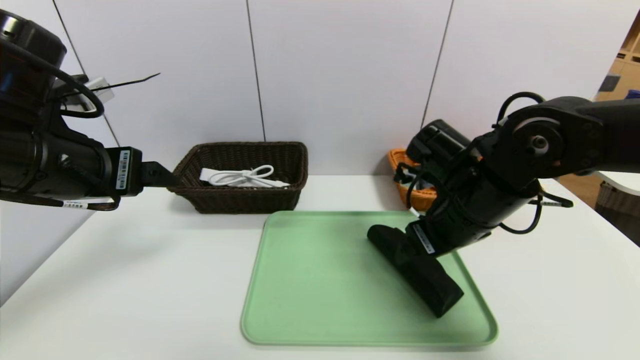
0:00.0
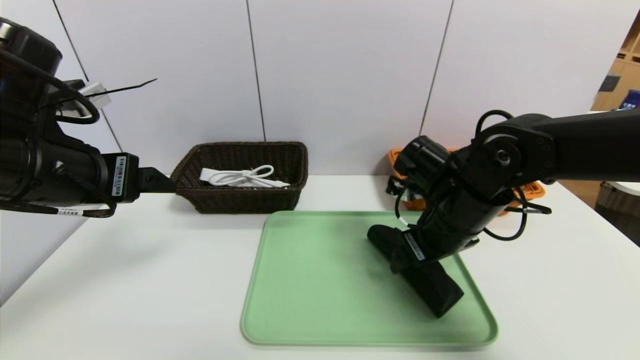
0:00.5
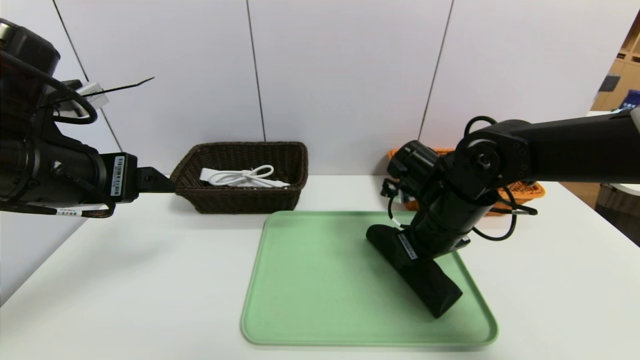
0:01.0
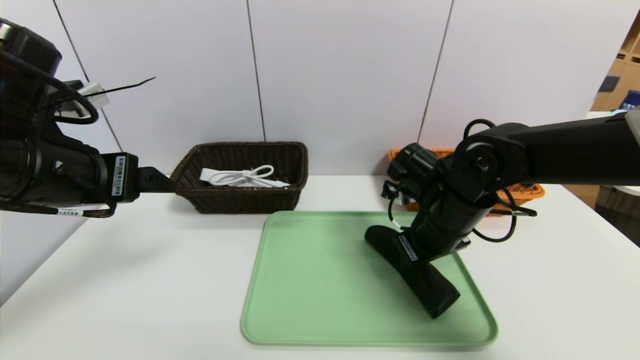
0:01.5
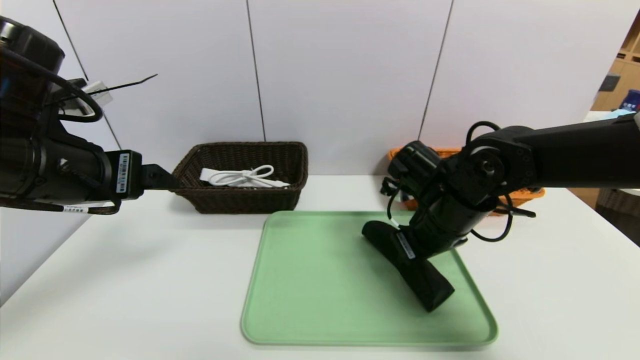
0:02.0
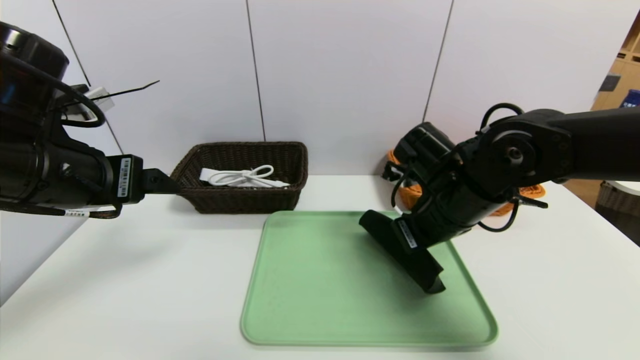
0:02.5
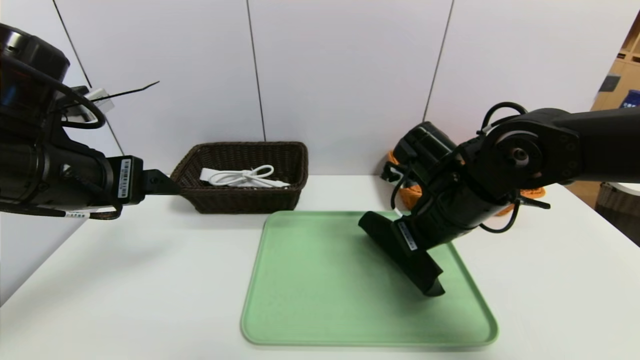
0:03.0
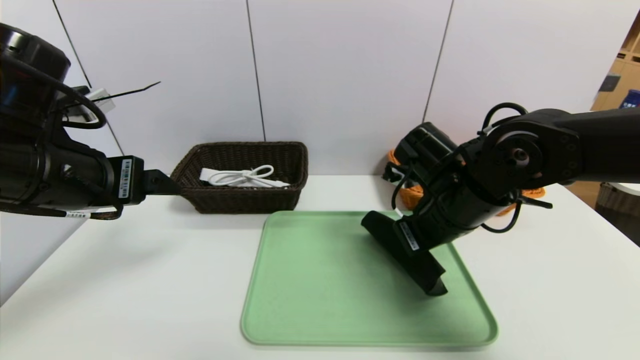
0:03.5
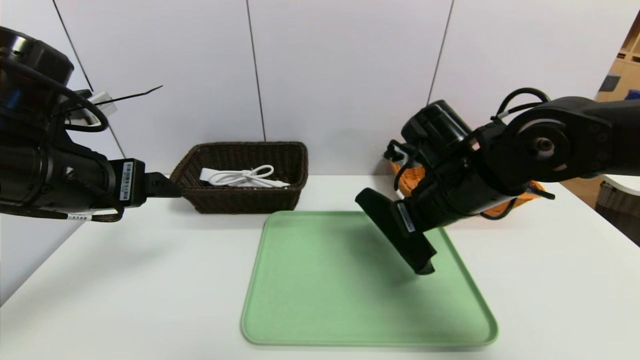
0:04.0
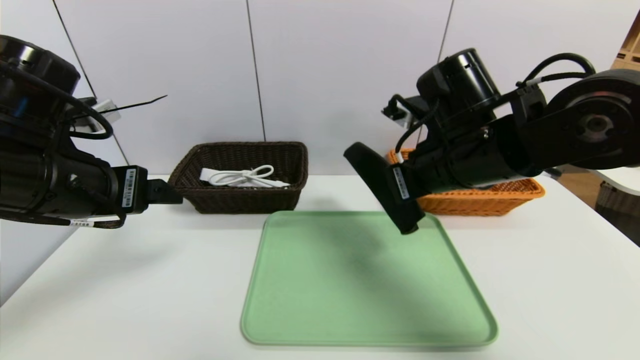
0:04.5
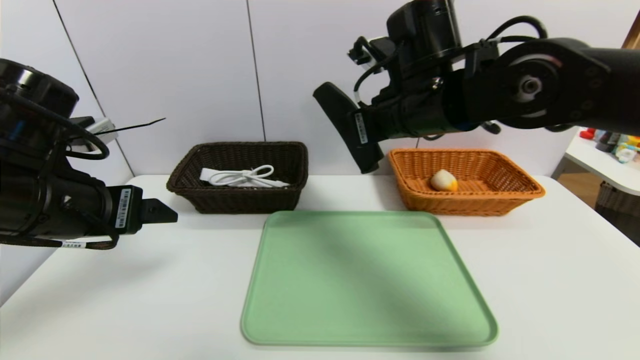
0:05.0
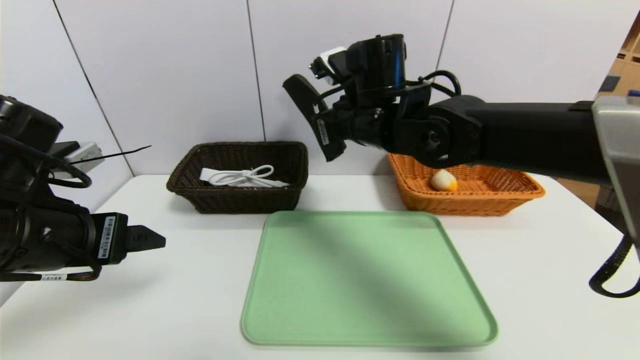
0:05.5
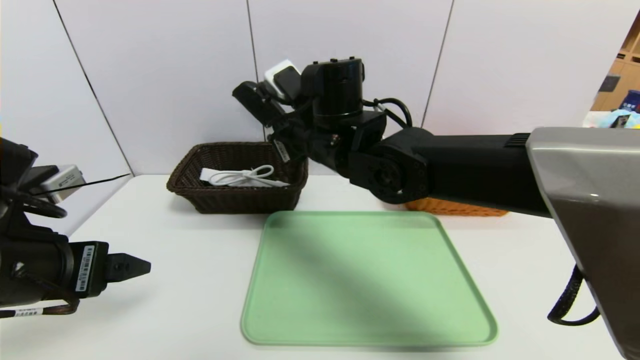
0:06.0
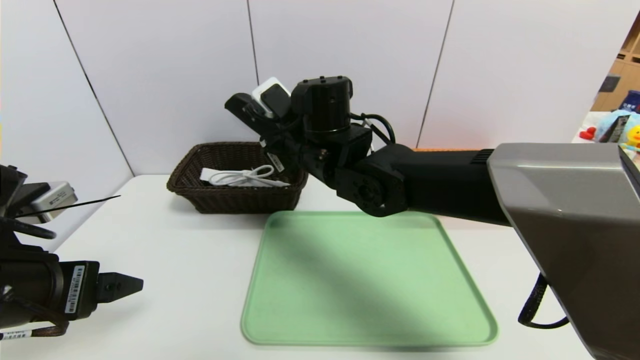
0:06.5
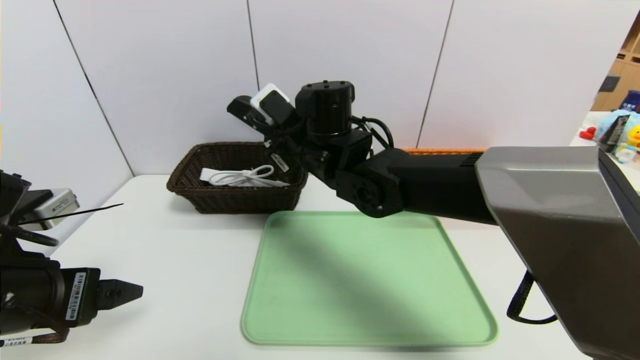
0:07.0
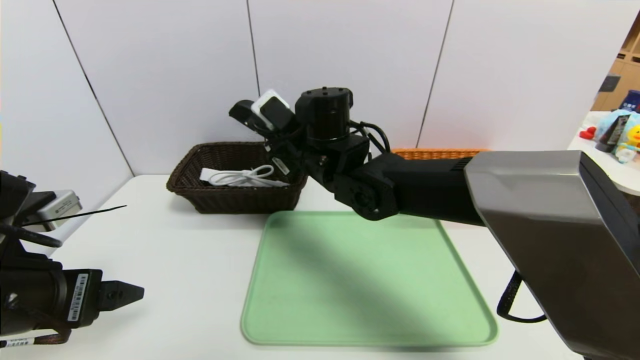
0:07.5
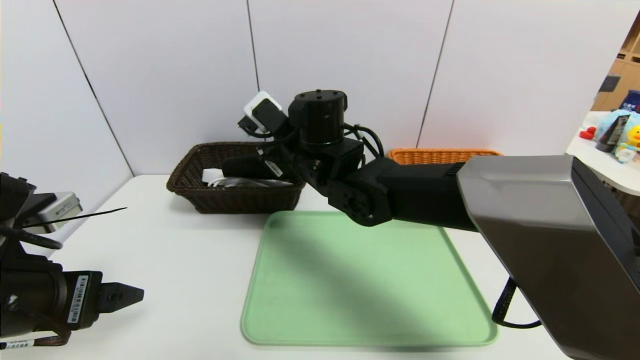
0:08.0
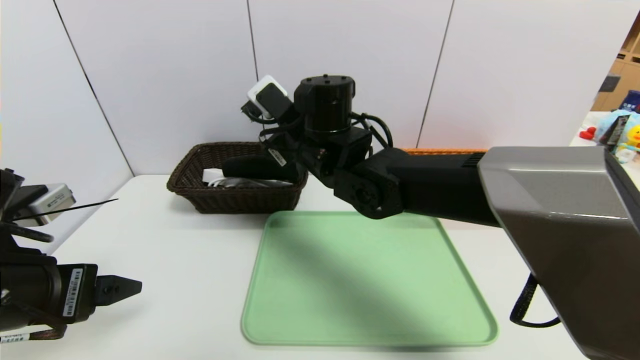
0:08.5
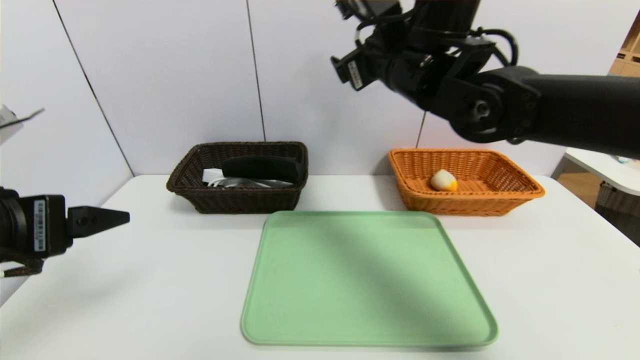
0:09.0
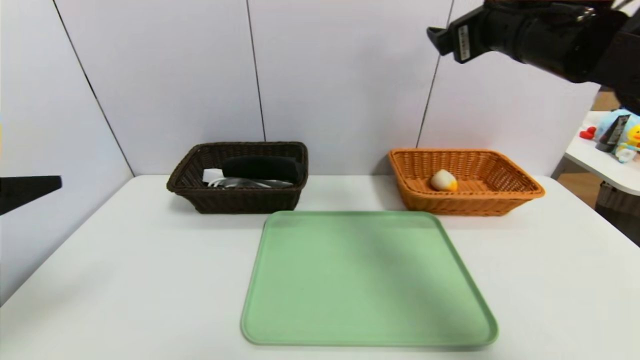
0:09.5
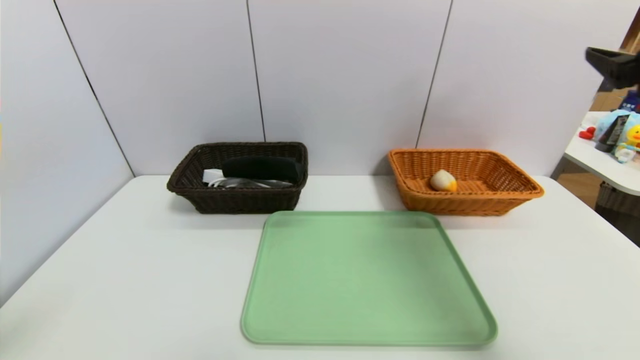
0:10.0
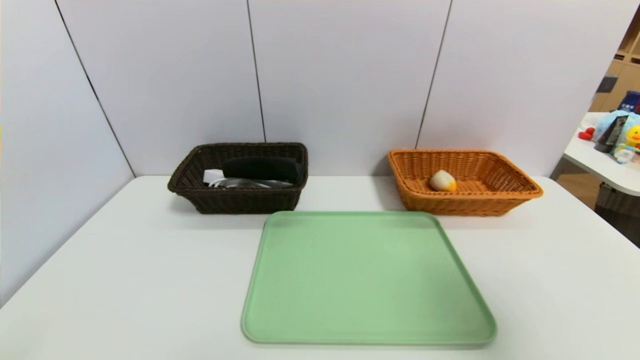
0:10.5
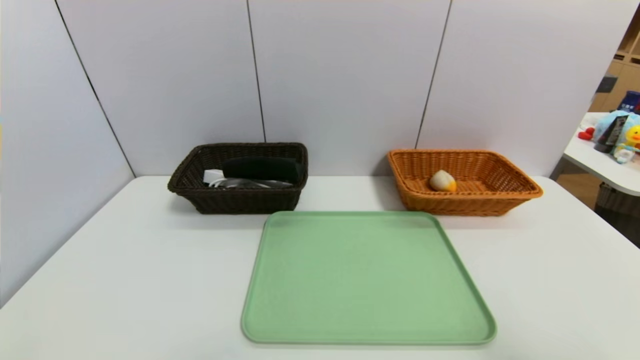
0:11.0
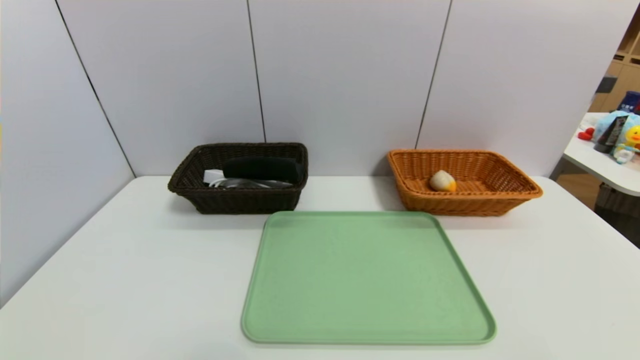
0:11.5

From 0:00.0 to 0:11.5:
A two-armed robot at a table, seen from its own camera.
Task of the whole recording: place the food in the right basket with the right gripper, and place the non food items in the left basket with the left gripper.
Step, from 0:00.0 to 0:08.0: Grasp the glasses case and put it in the left basket.
From 0:00.0 to 0:02.0: The right gripper closes up.
From 0:02.0 to 0:04.0: The right gripper changes place by some 5 cm.
From 0:04.0 to 0:06.0: The right gripper heads to the left, covering some 15 cm. The left gripper is displaced backward by approximately 5 cm.
From 0:07.5 to 0:09.5: The right gripper travels to the right and upward by about 25 cm, and opens up, while the left gripper moves upward, some 10 cm.
From 0:09.5 to 0:11.5: The left gripper shifts some 20 cm backward and downward. Meanwhile the right gripper moves backward, about 35 cm.

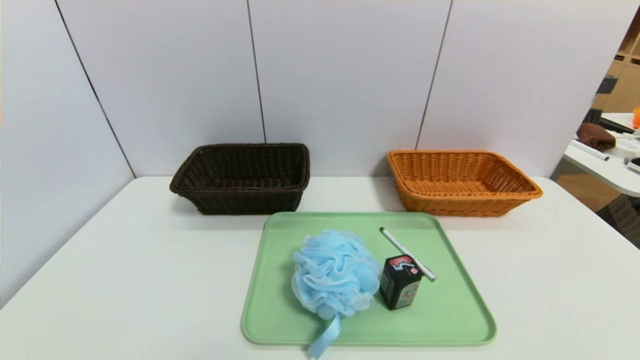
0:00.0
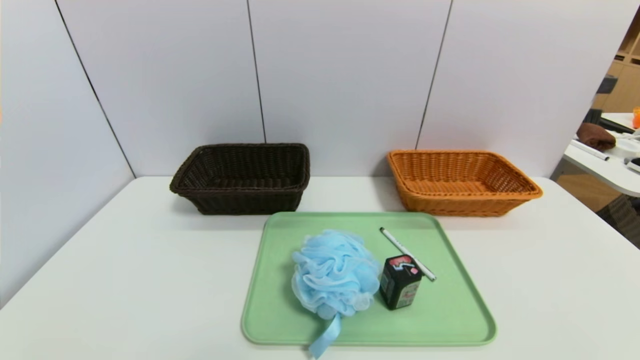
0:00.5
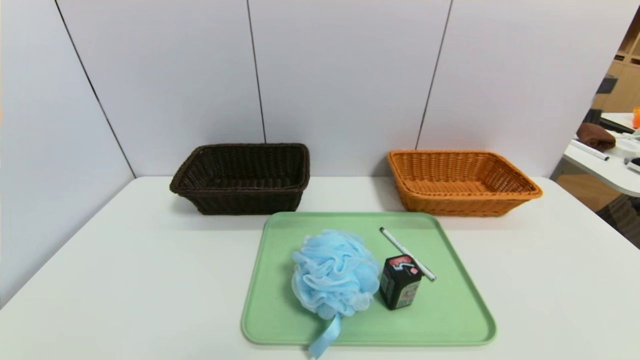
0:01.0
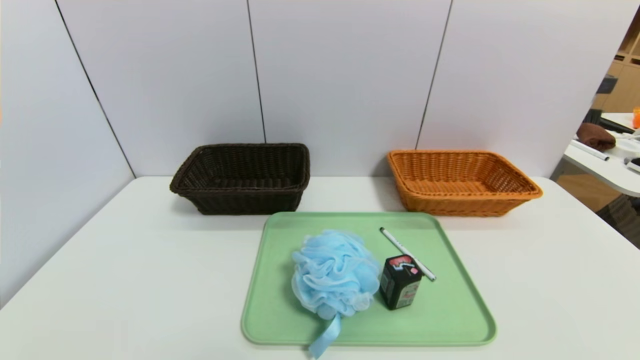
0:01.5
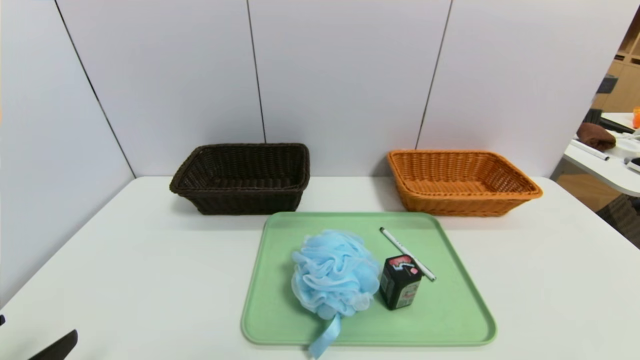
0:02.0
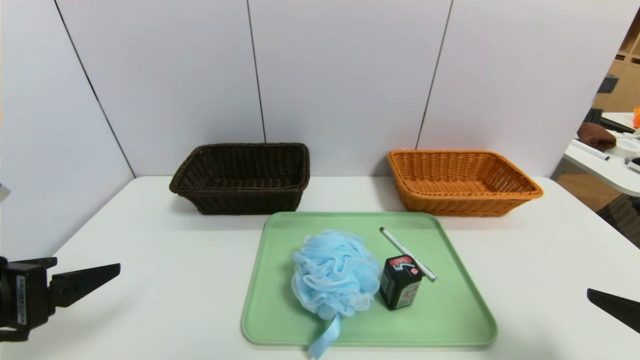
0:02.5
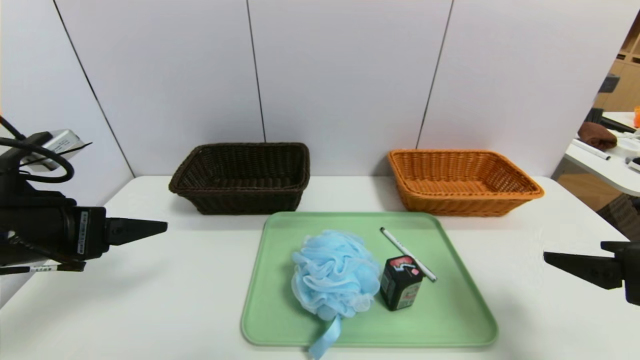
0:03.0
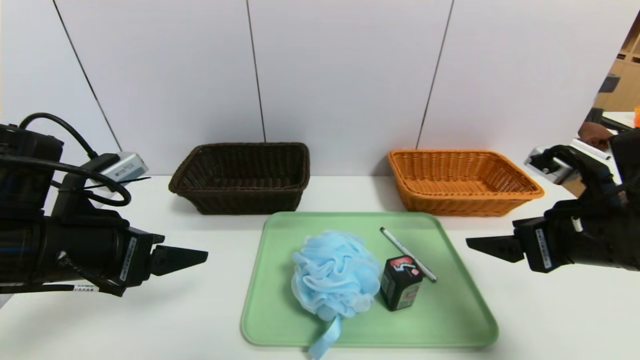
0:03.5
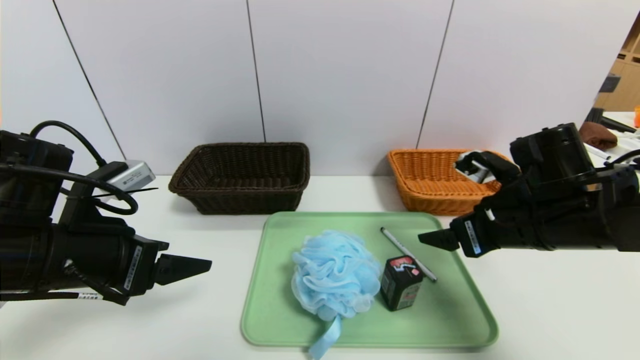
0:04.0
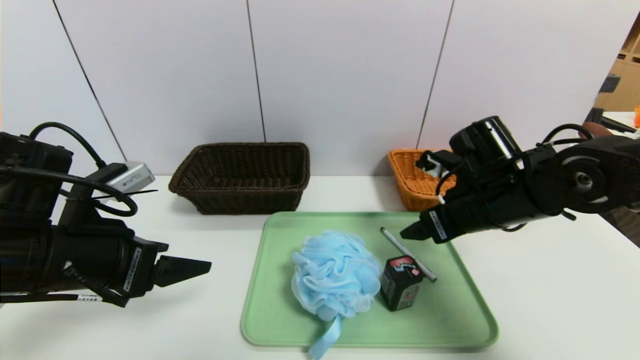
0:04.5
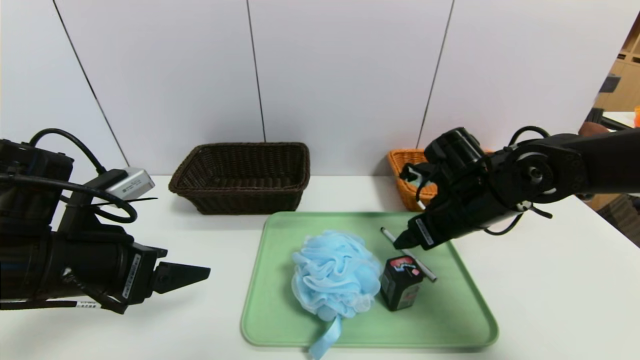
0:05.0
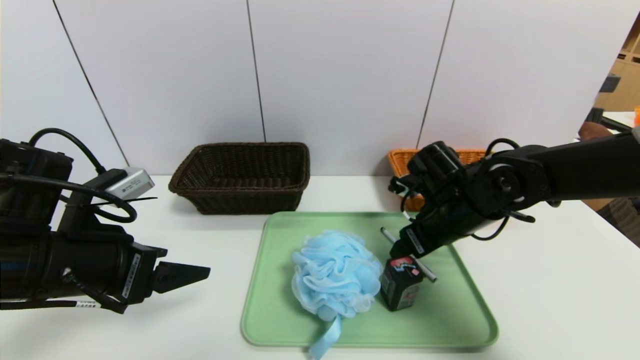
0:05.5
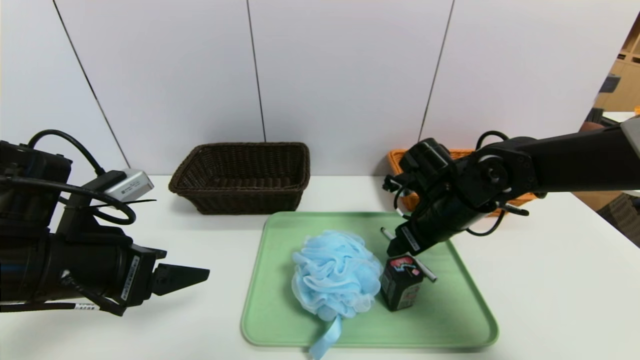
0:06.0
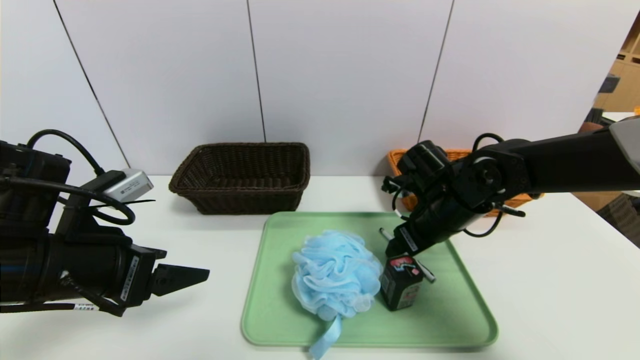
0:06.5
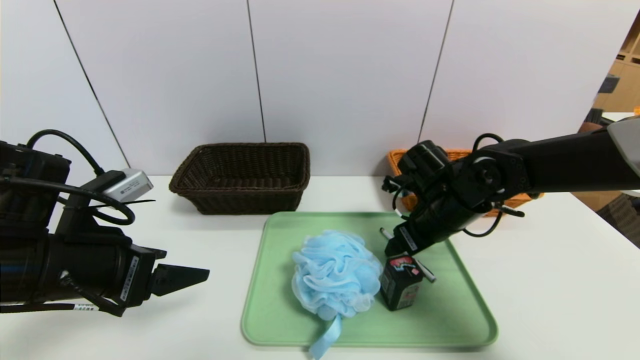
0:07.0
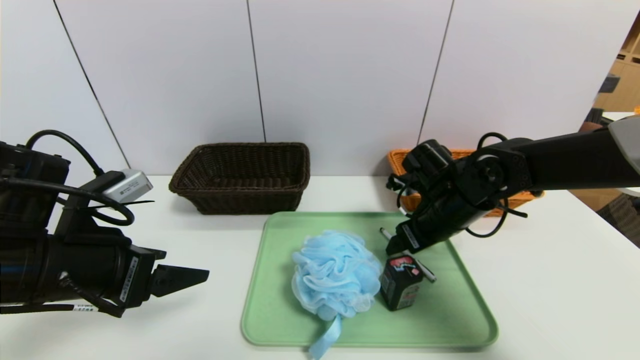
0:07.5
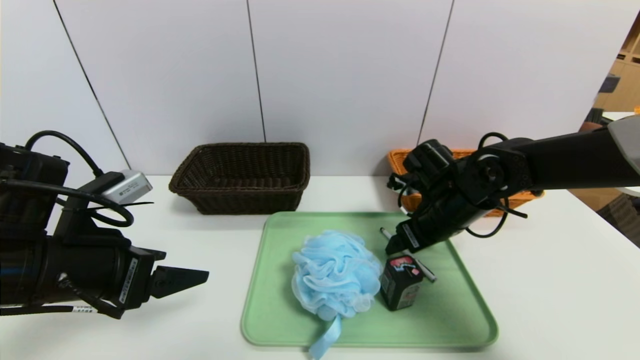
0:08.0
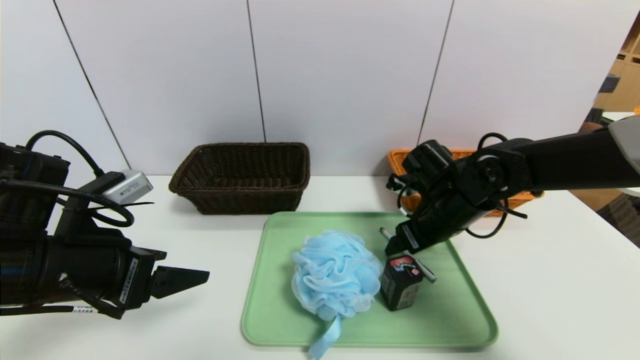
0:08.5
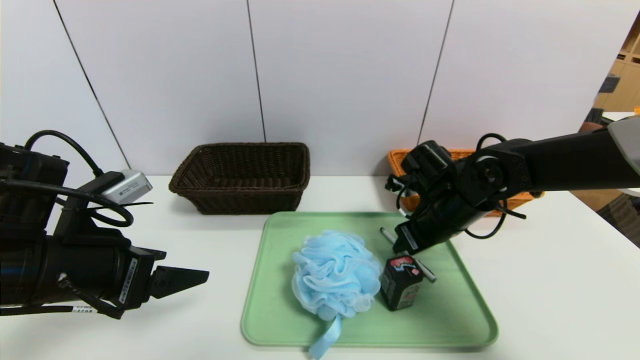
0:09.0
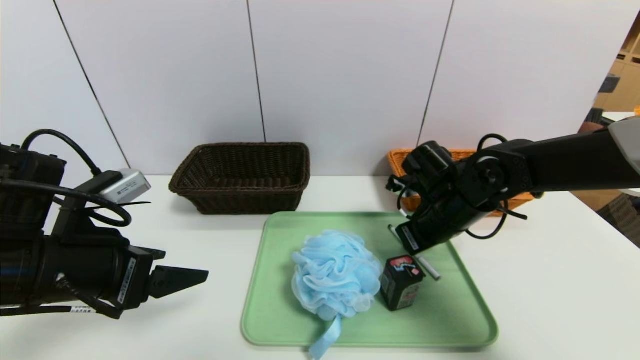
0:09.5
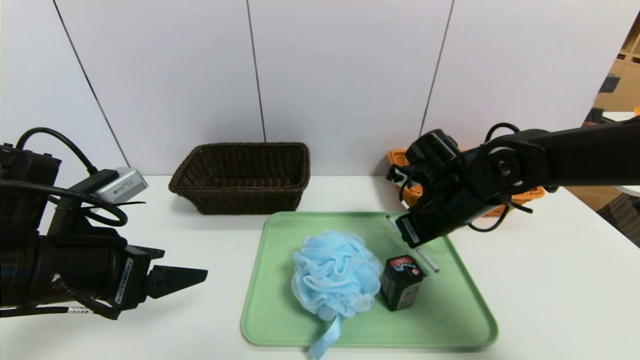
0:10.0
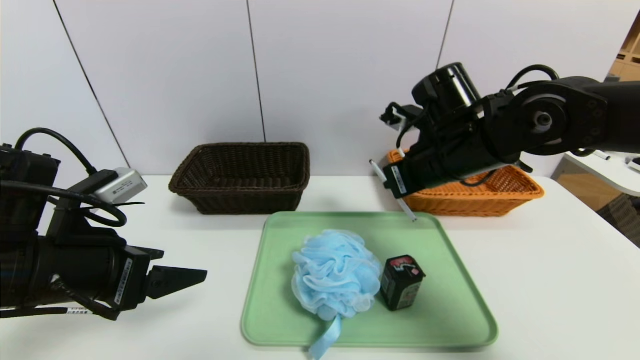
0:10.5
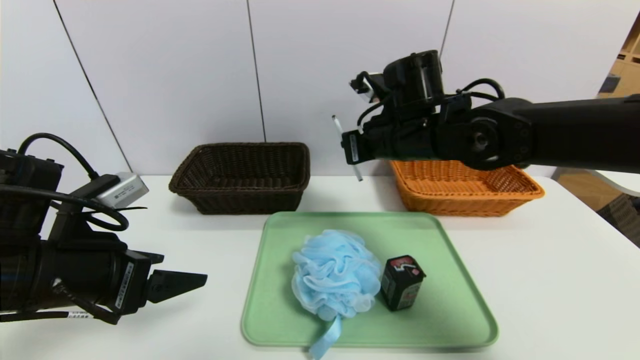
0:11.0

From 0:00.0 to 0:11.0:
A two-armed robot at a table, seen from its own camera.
Task of the whole recording: place the food in the right basket with the right gripper, and place the non food items in the left basket with the left gripper.
From 0:02.0 to 0:03.5: Both grippers move forward, roughly 20 cm.
From 0:03.5 to 0:05.5: The right gripper travels forward, to the left and downward by some 15 cm.
From 0:05.5 to 0:07.5: The grippers stay close to where they were, moving slightly.
From 0:09.0 to 0:11.0: The right gripper is displaced upward and to the left by about 15 cm, and closes up.
